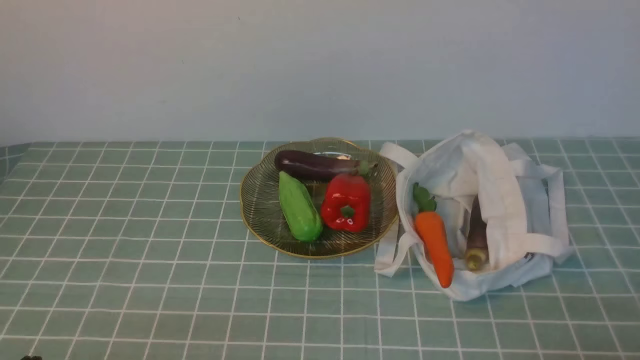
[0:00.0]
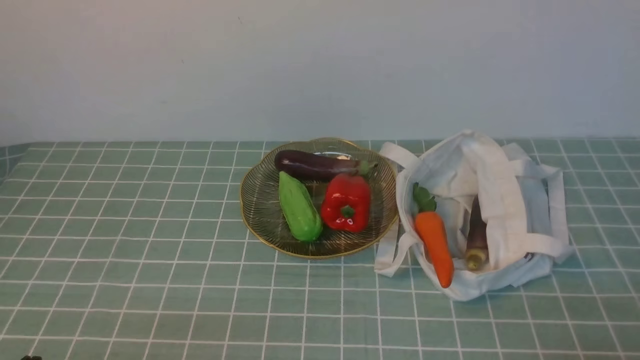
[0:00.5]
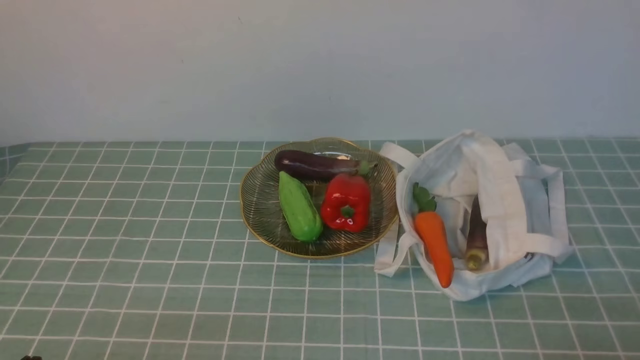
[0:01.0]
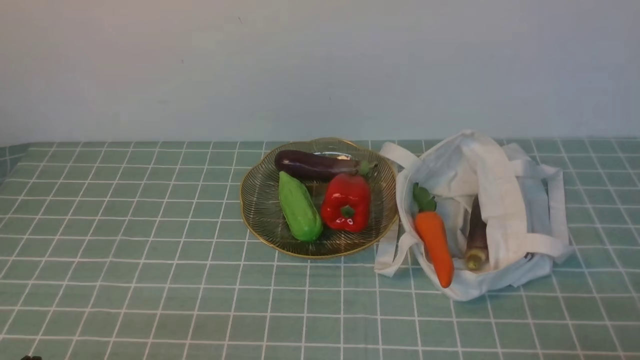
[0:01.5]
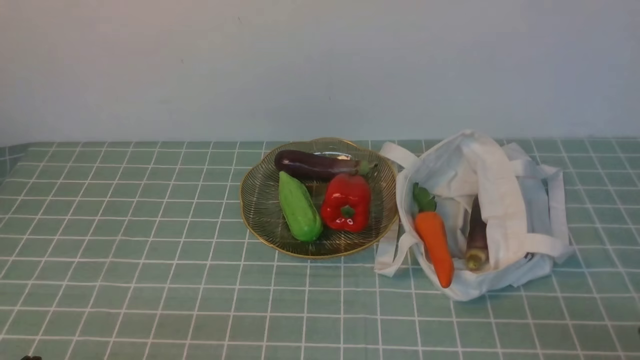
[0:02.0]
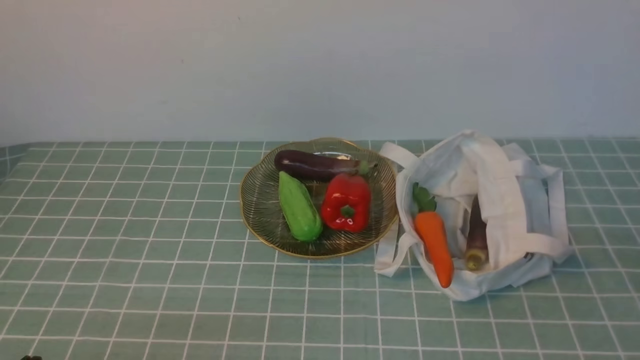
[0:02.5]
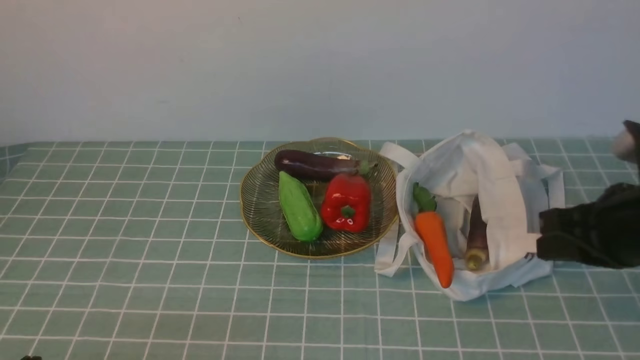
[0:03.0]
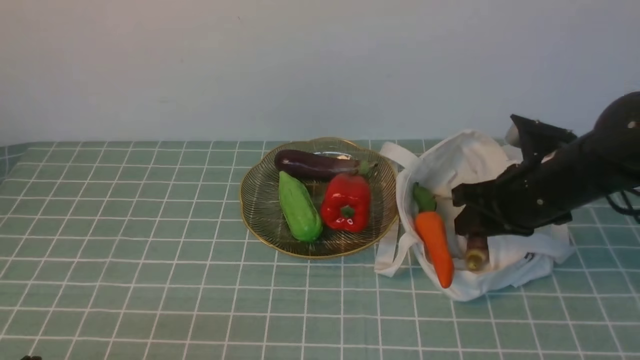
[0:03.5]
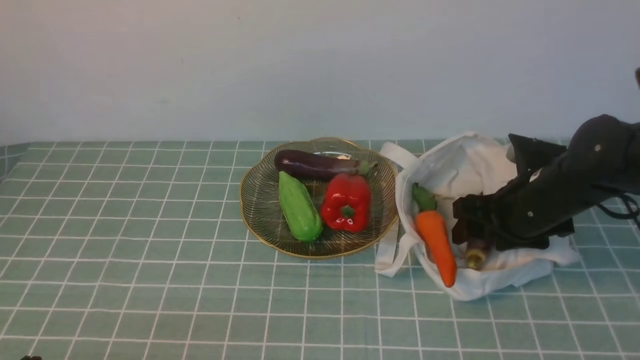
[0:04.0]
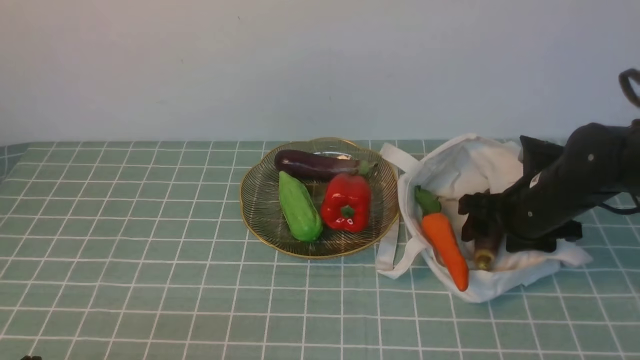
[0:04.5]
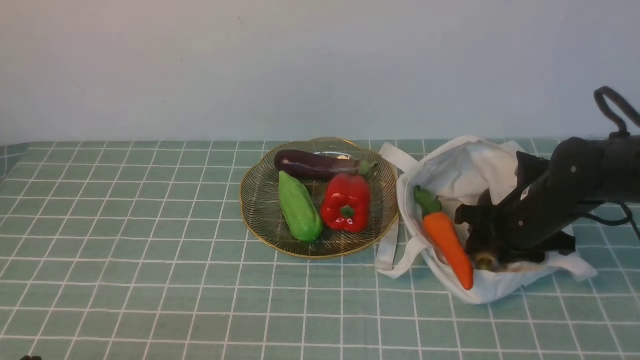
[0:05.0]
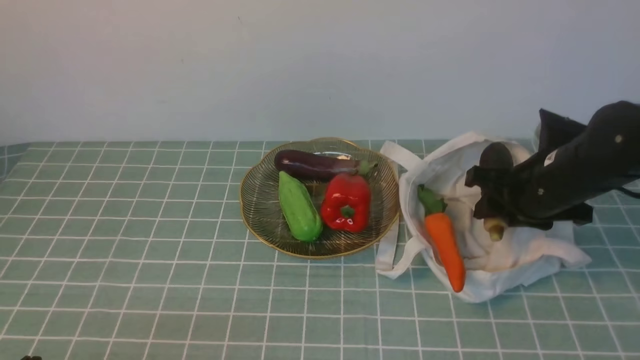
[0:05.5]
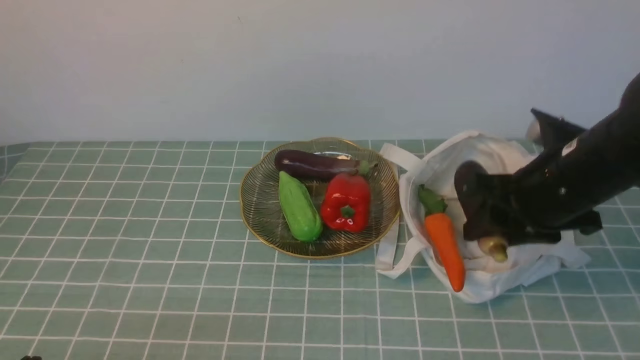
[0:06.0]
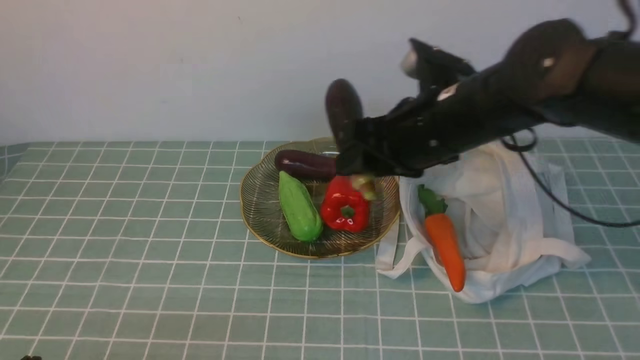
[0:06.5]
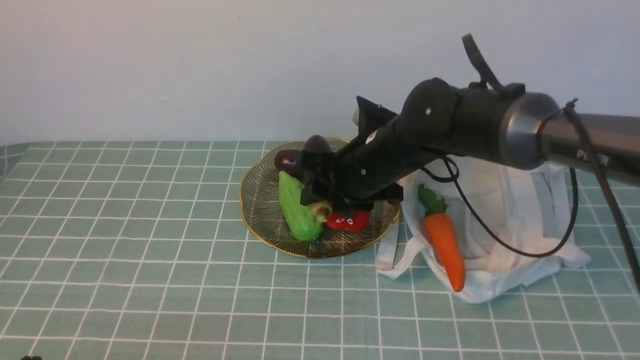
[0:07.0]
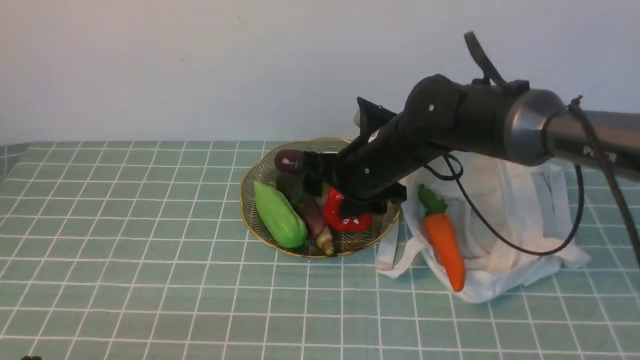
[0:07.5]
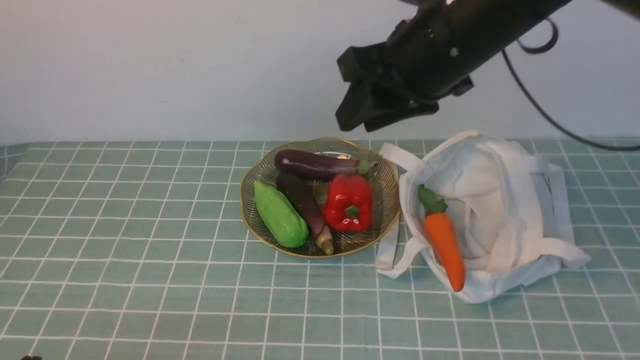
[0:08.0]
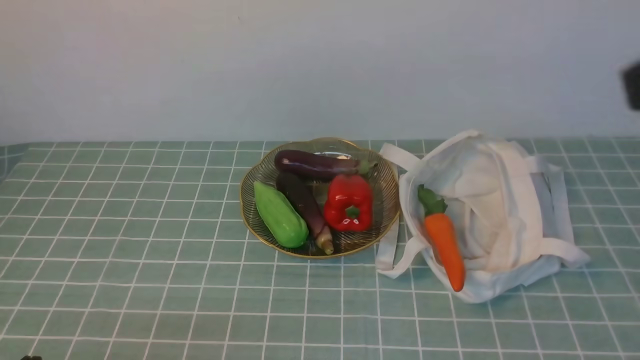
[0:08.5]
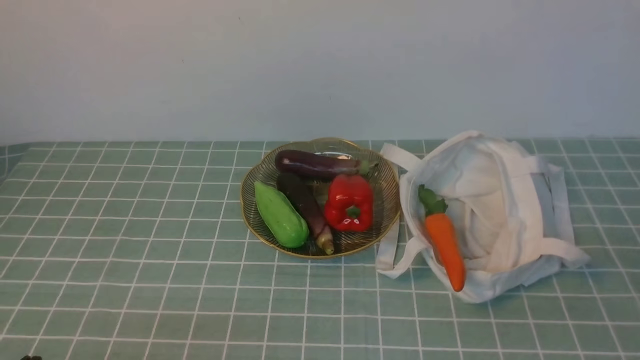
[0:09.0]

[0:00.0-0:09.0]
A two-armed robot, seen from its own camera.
Task of the whole recording: take vegetables from cloth bag on blue coffee tablecloth place on plate.
Step, 0:00.0 to 0:05.0: Grasp the eggplant with right gripper.
Step, 0:05.5 to 0:07.5: Place the eggplant on the plate with right gripper.
0:02.0 to 0:04.5: The right gripper is displaced forward by roughly 30 cm, and opens.
0:04.5 to 0:07.0: The right gripper shifts approximately 20 cm to the left.
0:07.0 to 0:09.0: The right gripper goes about 40 cm backward and to the right, and closes up.

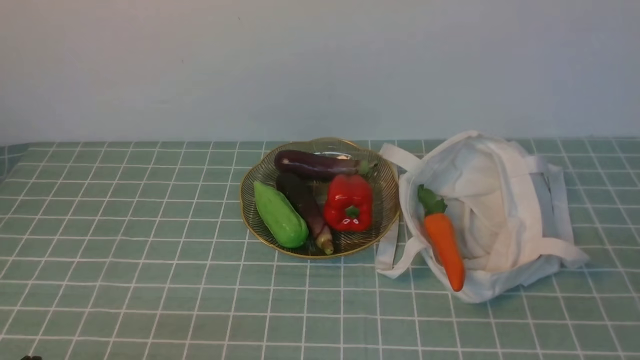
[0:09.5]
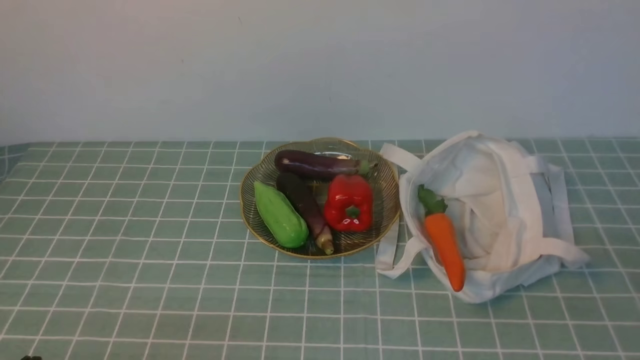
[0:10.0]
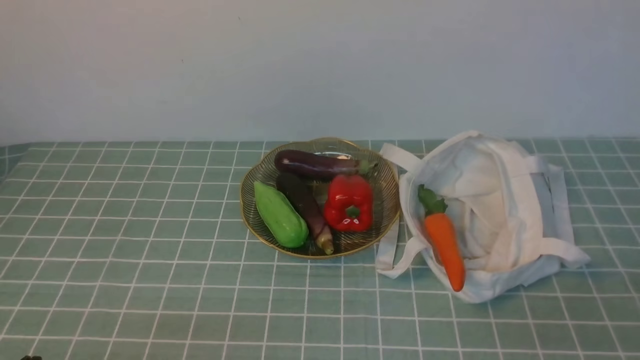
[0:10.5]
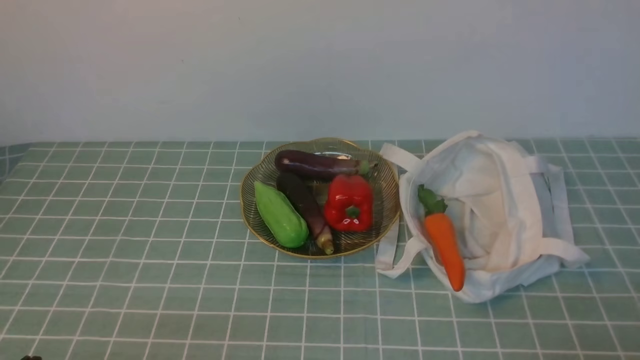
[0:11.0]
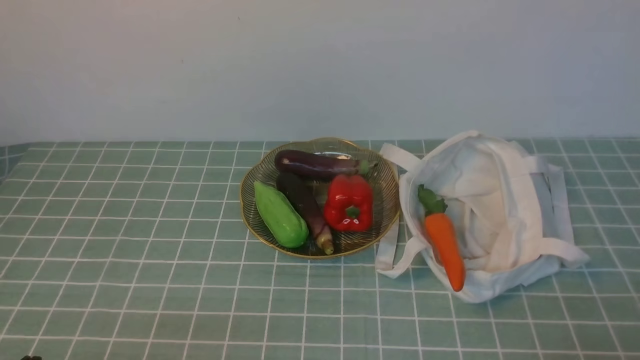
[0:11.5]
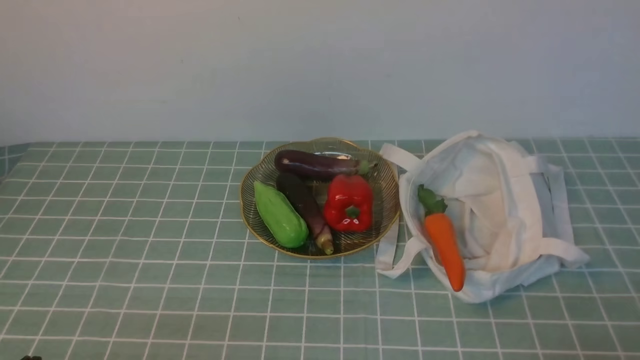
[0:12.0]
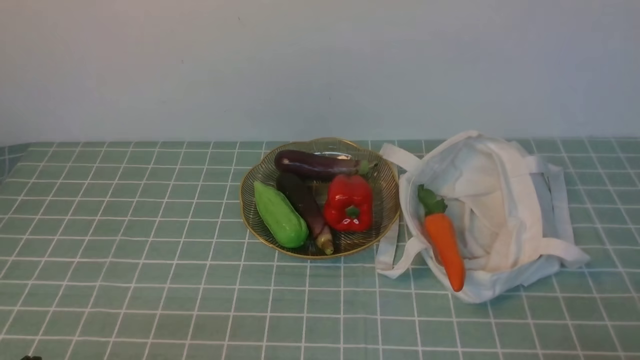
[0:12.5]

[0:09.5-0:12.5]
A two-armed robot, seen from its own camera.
Task of the whole recording: take vegetables from cloth bag on blue coffee tablecloth place on plate.
0:11.0 to 0:12.5: Neither gripper changes place.

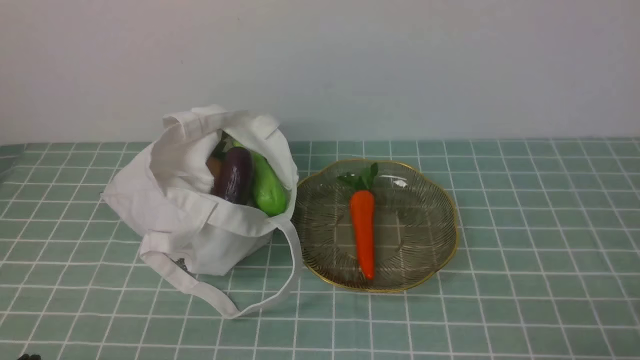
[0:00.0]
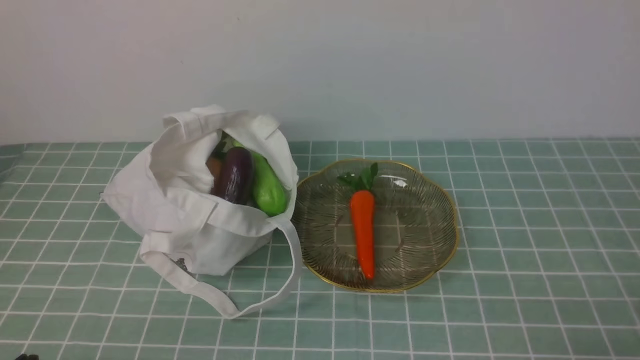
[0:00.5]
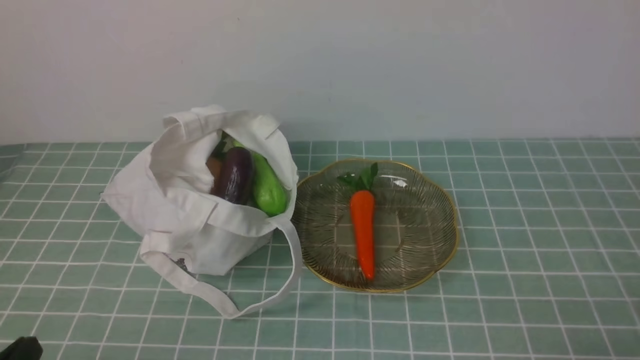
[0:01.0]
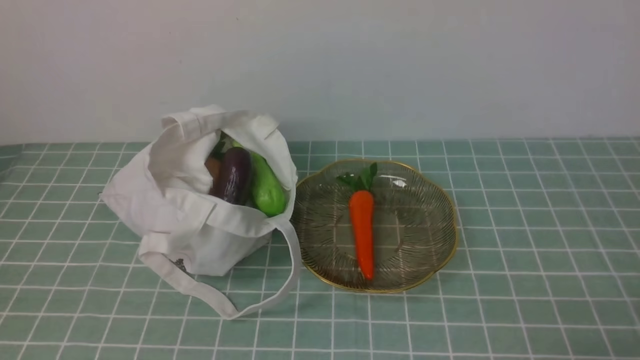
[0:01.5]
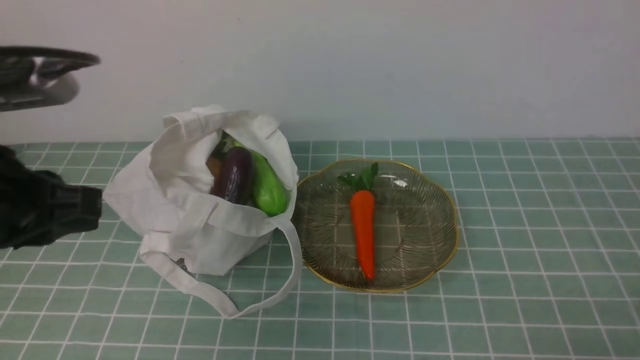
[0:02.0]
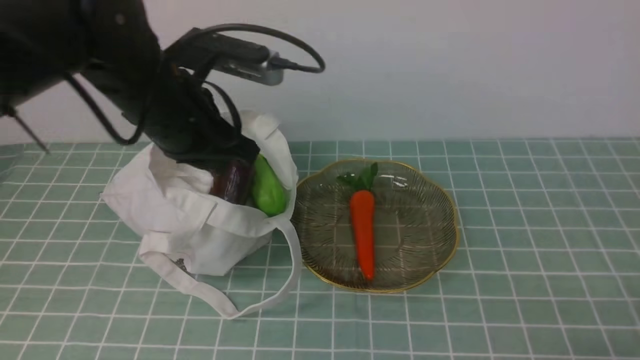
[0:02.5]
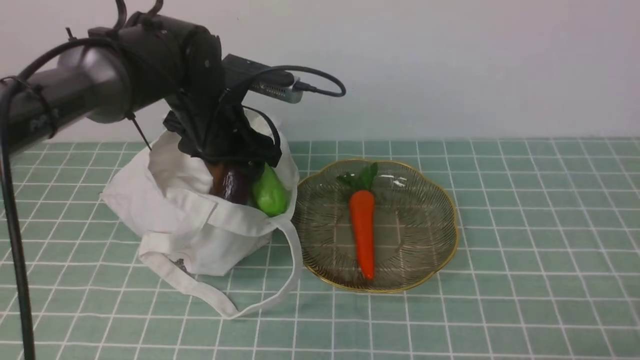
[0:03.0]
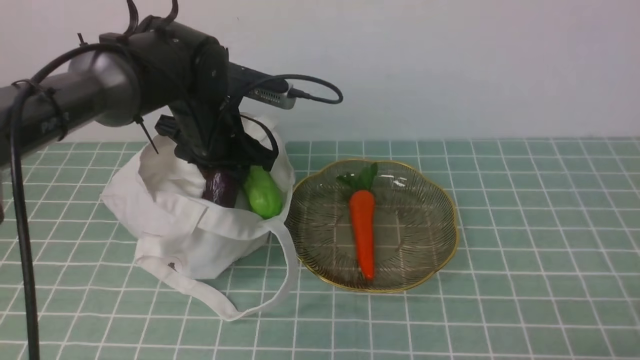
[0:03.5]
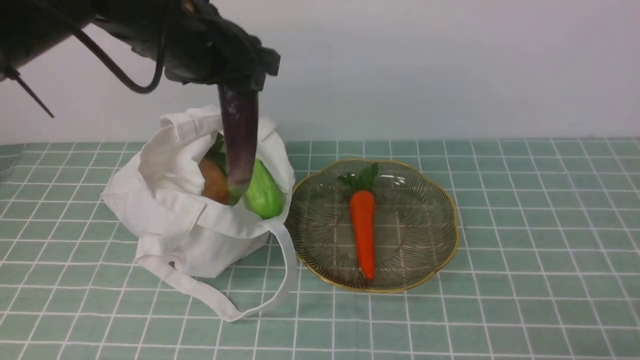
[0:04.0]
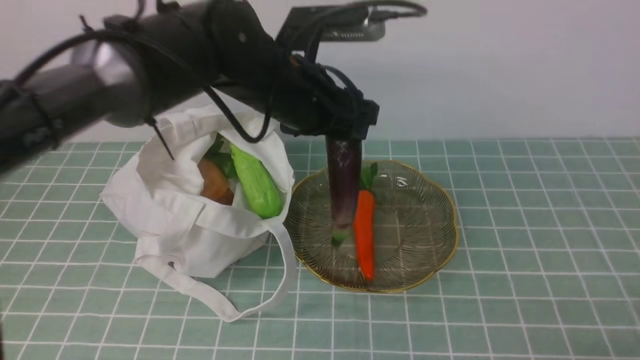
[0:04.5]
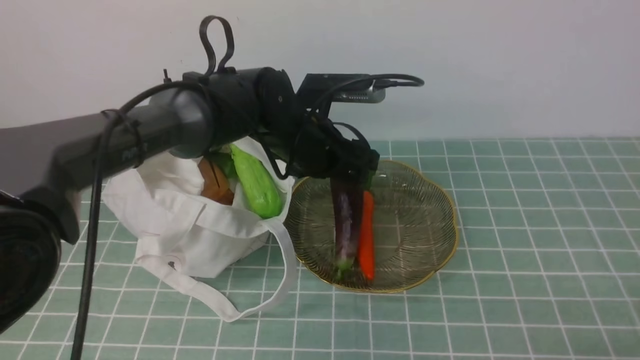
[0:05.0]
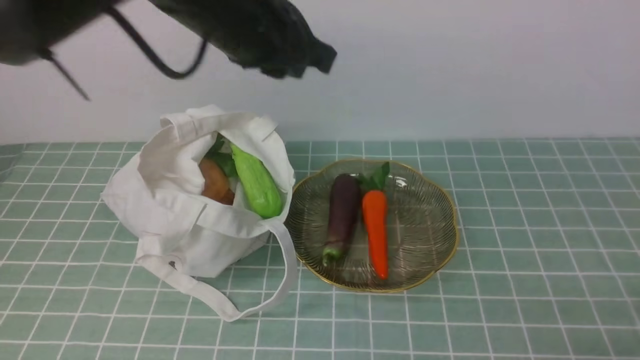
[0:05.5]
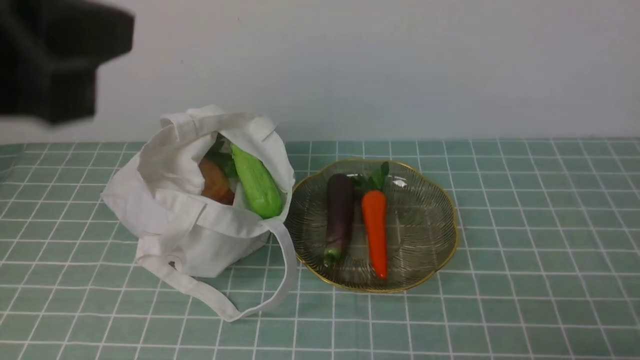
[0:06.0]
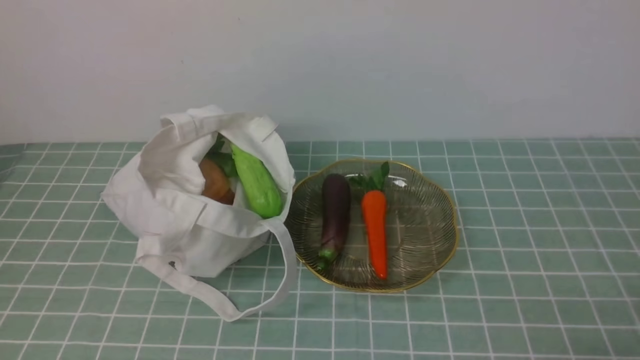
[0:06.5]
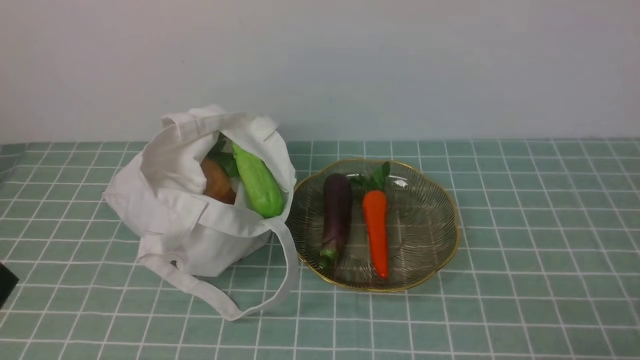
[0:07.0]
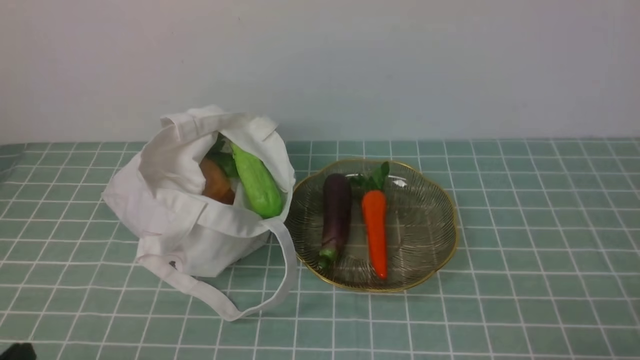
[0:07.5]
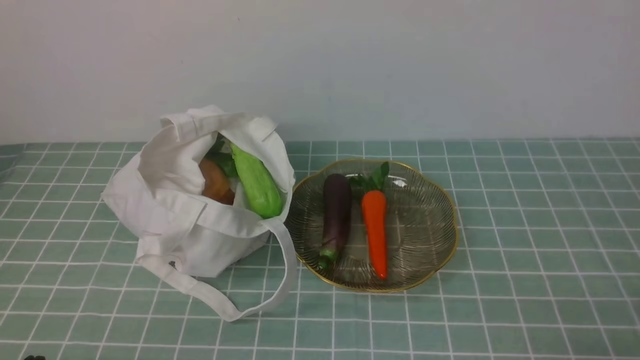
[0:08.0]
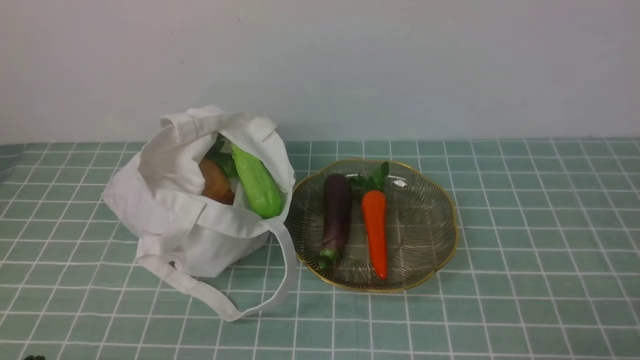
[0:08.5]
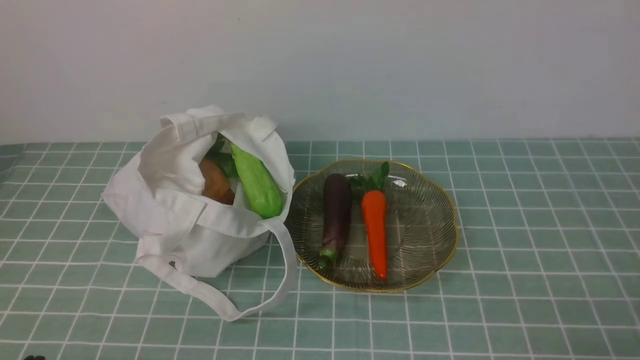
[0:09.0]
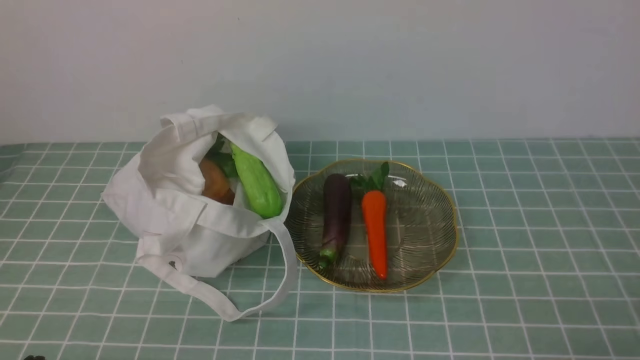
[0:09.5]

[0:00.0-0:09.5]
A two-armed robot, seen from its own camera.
Task of the whole recording: take vegetables from cloth bag on blue coffee tablecloth place on plate.
Step, 0:00.0 to 0:03.0: Grasp the eggplant with left gripper.
Step, 0:03.5 to 0:05.0: Place the eggplant on the plate with left gripper.
0:00.0 to 0:02.0: The left gripper moves upward and forward, some 25 cm.
0:02.0 to 0:04.0: The left gripper is displaced forward and to the right by approximately 20 cm, and opens its fingers.
0:04.0 to 0:05.5: The left gripper moves some 10 cm downward and comes back, and closes up.
0:05.5 to 0:07.5: The left gripper travels backward, downward and to the left by some 40 cm.
